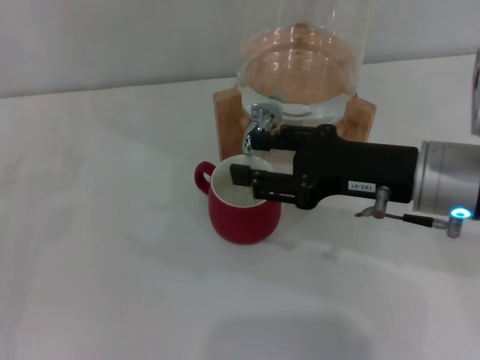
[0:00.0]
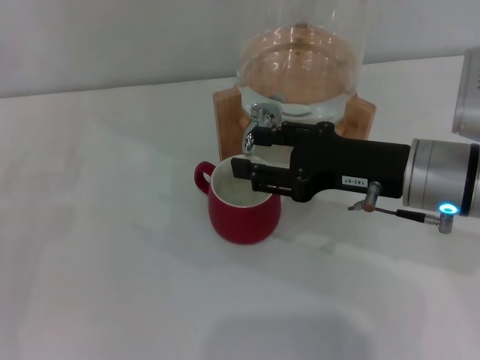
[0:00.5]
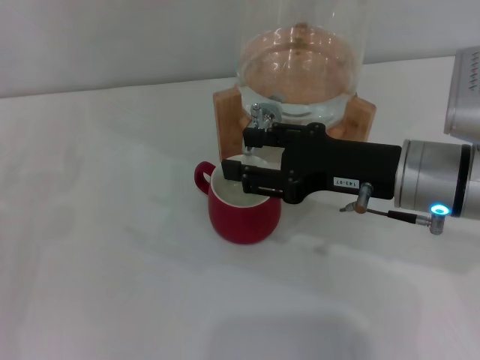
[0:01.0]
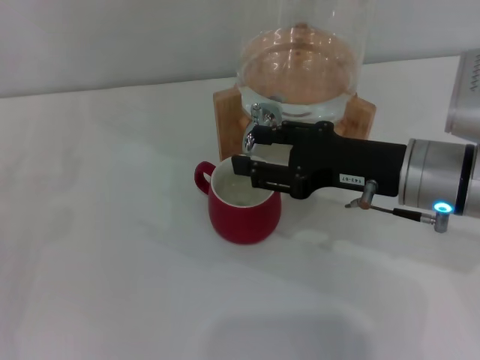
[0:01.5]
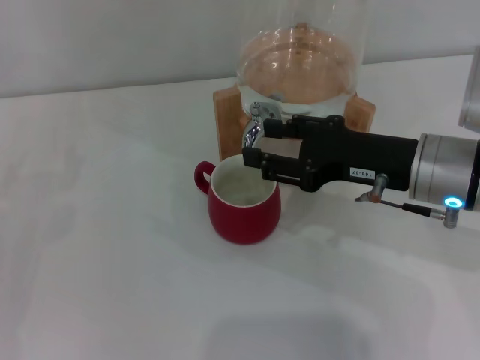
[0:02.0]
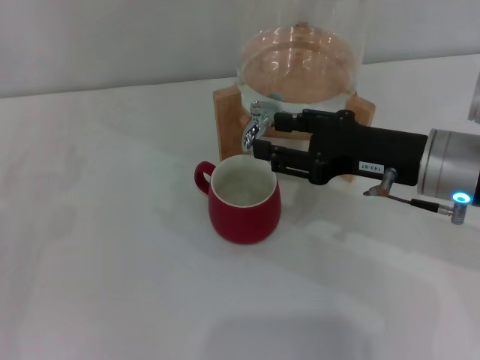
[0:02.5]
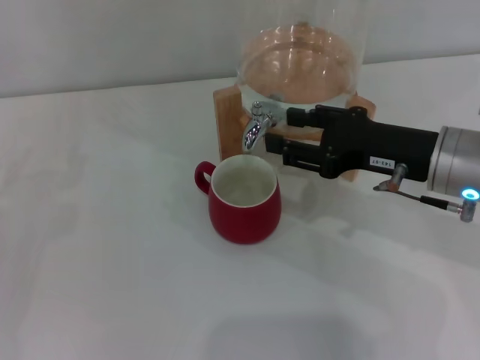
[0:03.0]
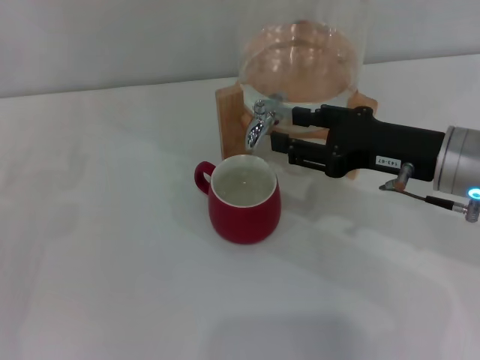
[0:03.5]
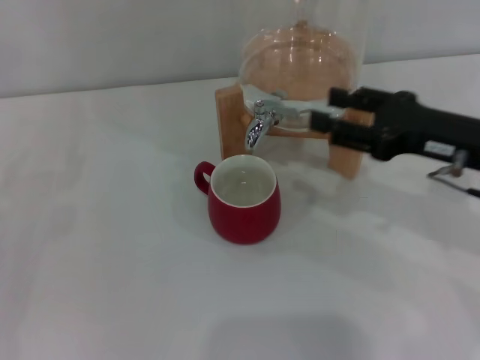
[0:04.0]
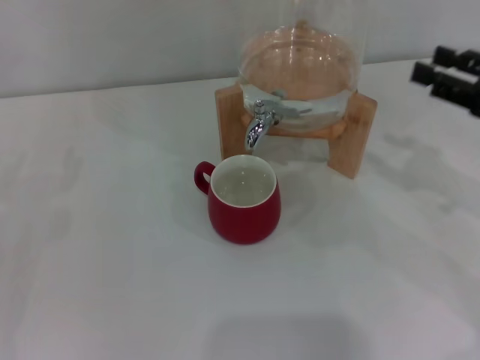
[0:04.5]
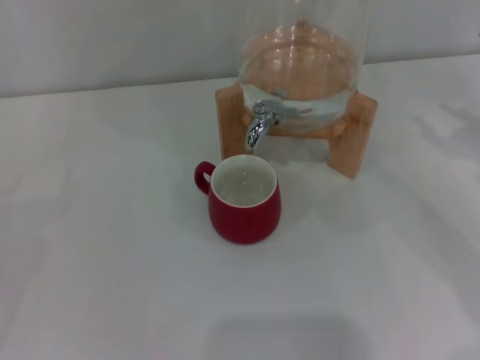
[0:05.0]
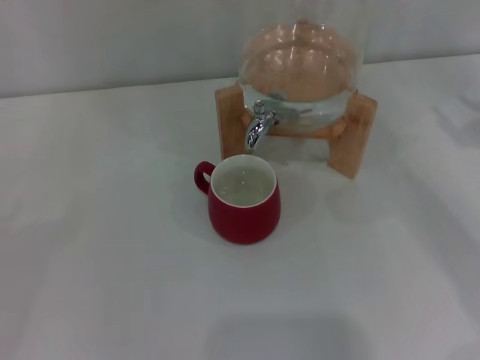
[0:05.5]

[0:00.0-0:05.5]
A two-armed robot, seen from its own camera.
Task of the whole recording: the left gripper pick up the red cup and place it horizontally under the faucet, the right gripper turn on the faucet to fill the cup, and then turn off the faucet.
Step, 0:01.5 to 0:04.0: Close the dispenser valve with the right gripper.
0:00.0 to 0:03.5: The grippers move only a little.
0:03.5 to 0:05.5: The right gripper shifts some 15 cm to the right. The left gripper goes roughly 5 cm backward.
